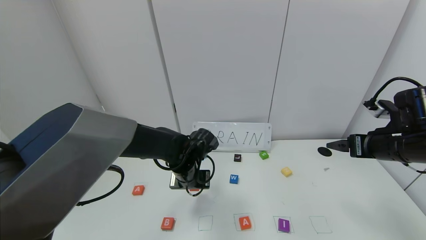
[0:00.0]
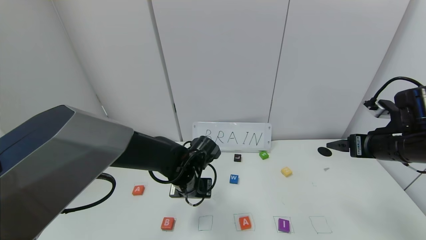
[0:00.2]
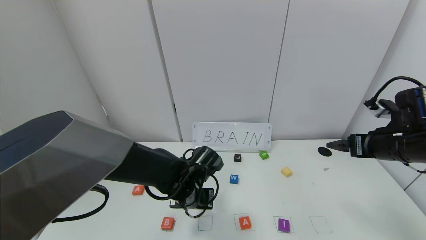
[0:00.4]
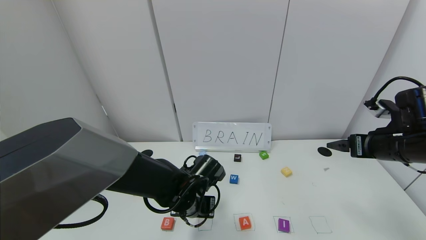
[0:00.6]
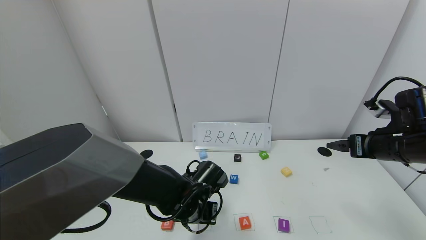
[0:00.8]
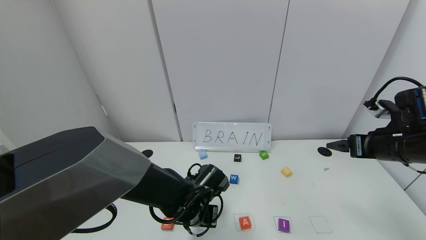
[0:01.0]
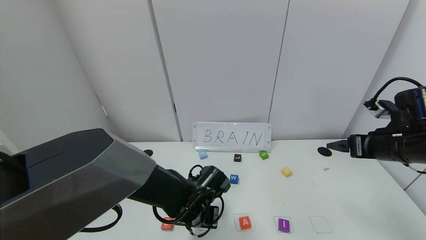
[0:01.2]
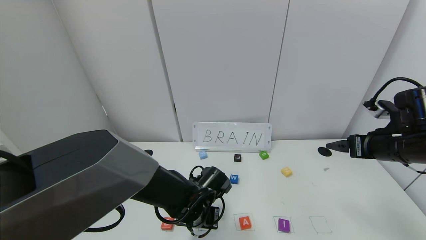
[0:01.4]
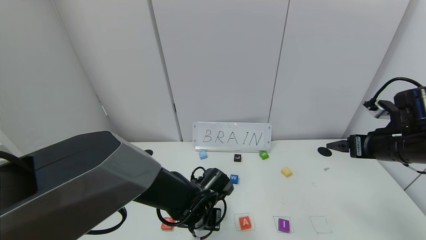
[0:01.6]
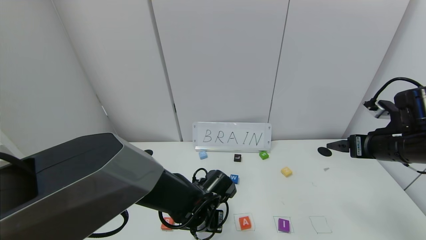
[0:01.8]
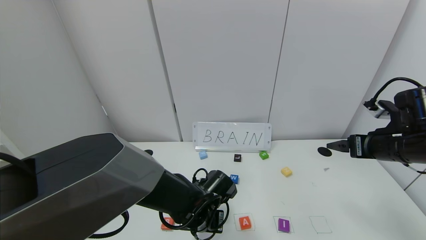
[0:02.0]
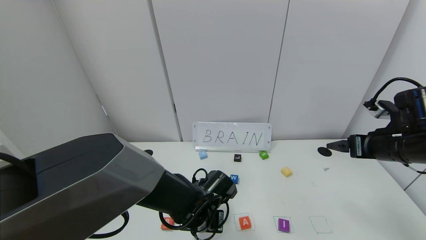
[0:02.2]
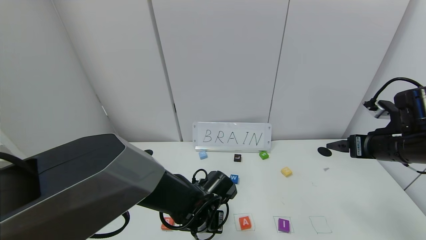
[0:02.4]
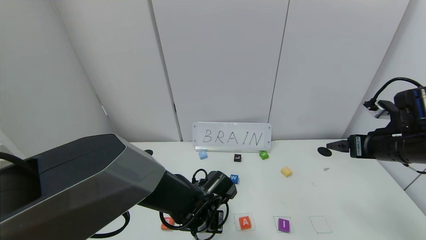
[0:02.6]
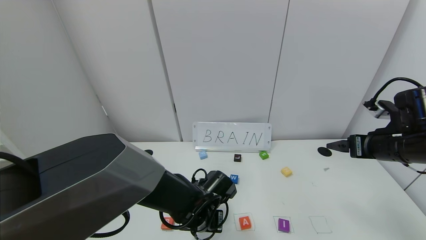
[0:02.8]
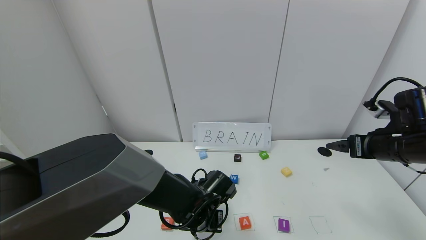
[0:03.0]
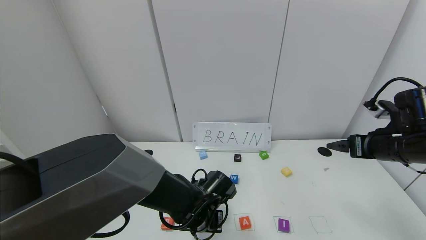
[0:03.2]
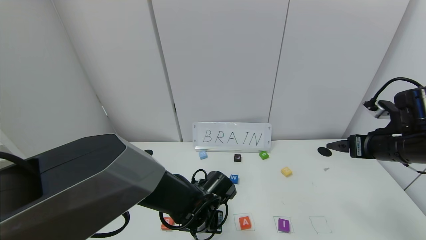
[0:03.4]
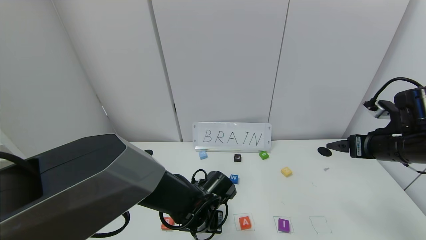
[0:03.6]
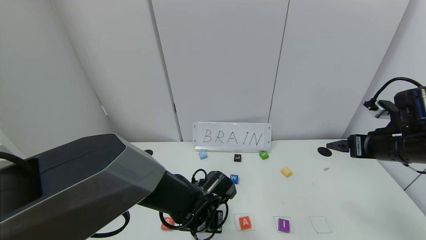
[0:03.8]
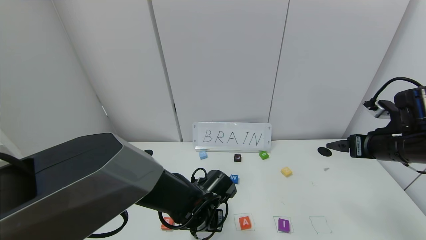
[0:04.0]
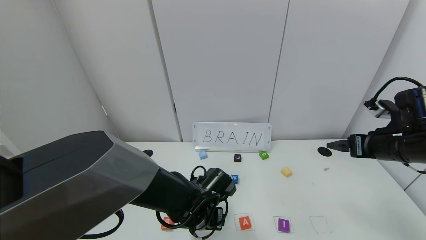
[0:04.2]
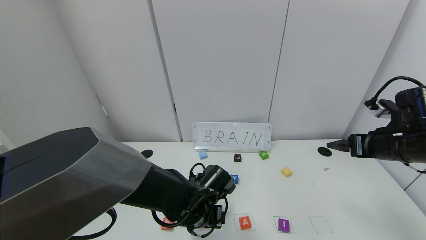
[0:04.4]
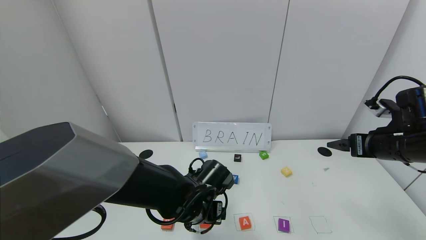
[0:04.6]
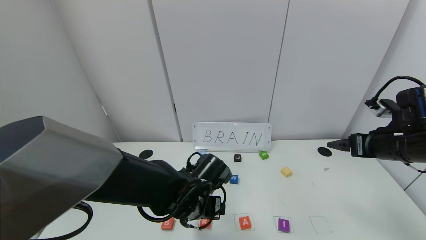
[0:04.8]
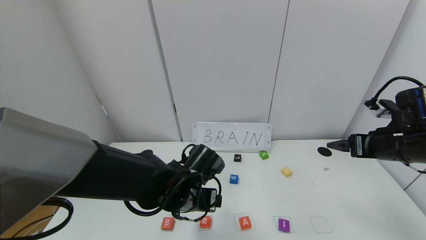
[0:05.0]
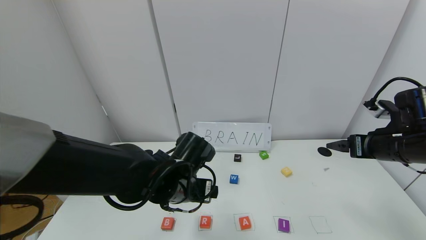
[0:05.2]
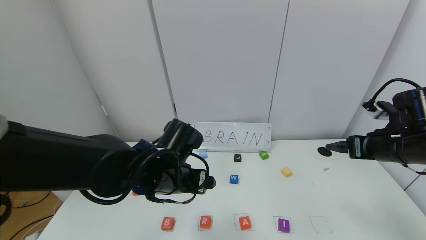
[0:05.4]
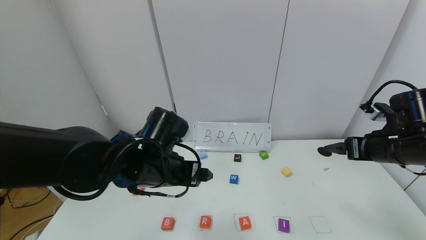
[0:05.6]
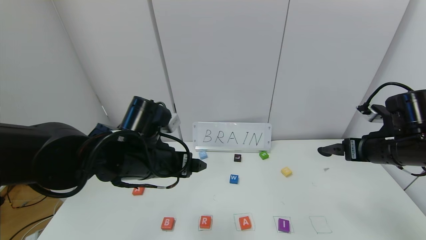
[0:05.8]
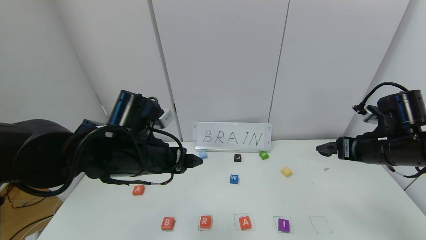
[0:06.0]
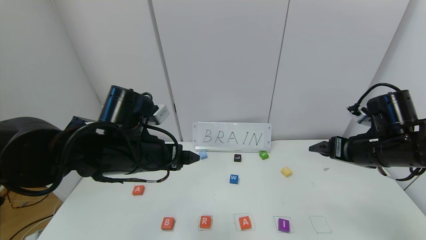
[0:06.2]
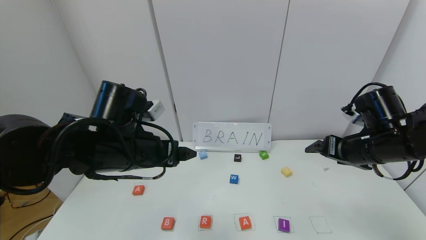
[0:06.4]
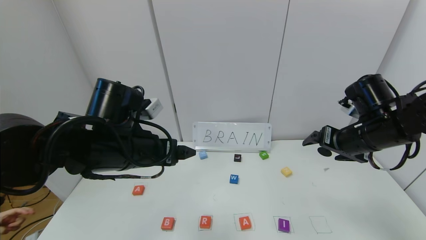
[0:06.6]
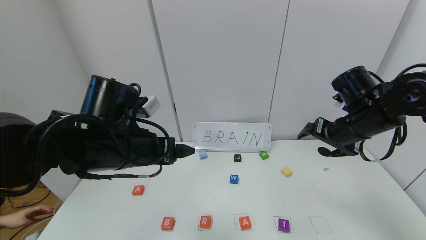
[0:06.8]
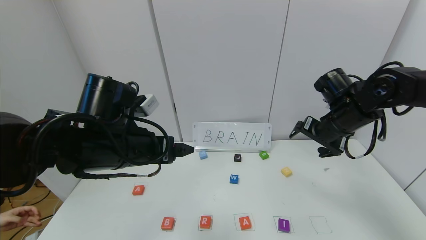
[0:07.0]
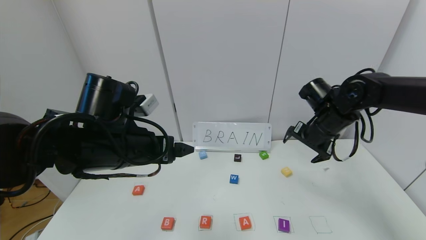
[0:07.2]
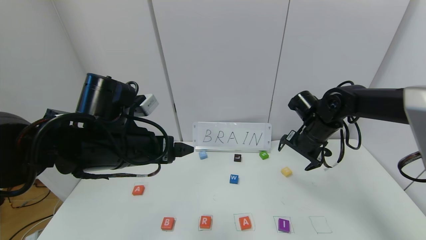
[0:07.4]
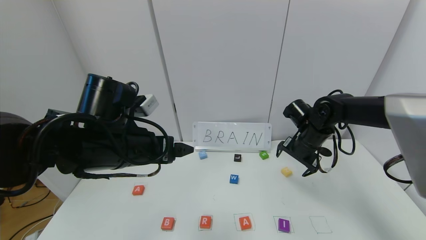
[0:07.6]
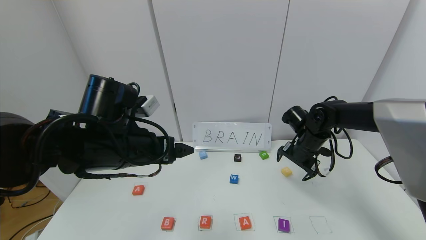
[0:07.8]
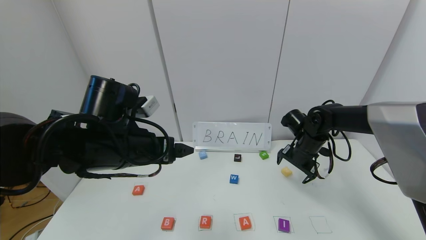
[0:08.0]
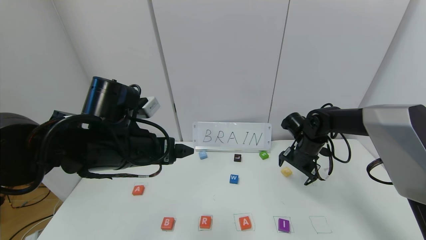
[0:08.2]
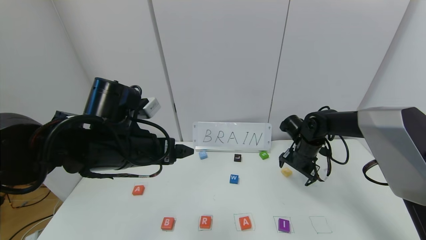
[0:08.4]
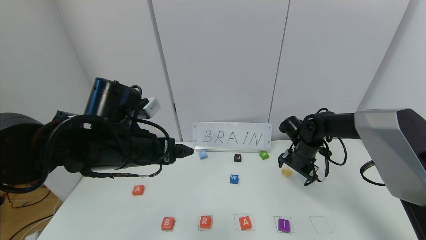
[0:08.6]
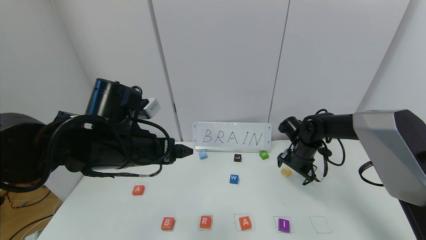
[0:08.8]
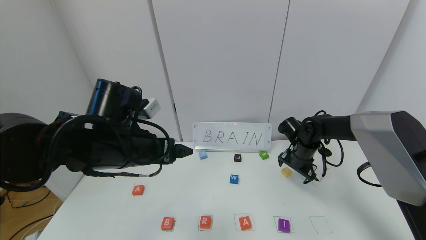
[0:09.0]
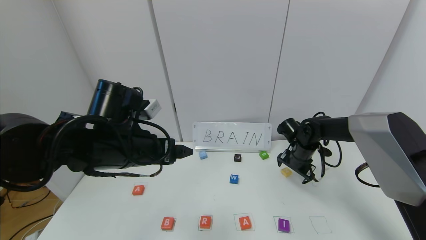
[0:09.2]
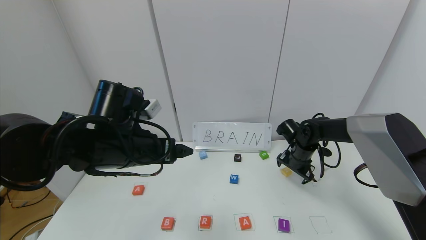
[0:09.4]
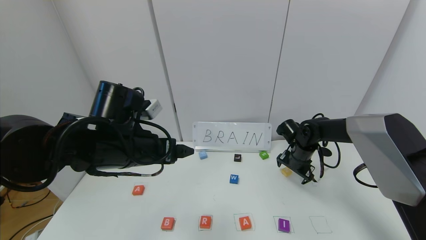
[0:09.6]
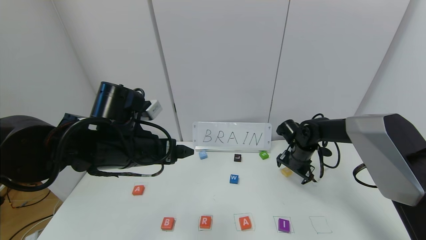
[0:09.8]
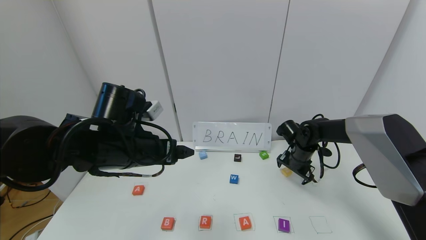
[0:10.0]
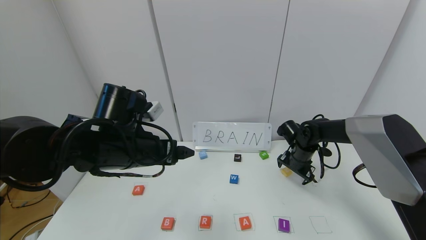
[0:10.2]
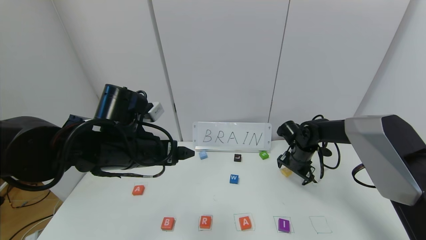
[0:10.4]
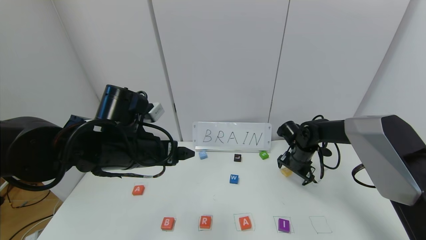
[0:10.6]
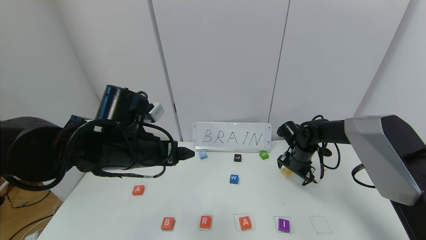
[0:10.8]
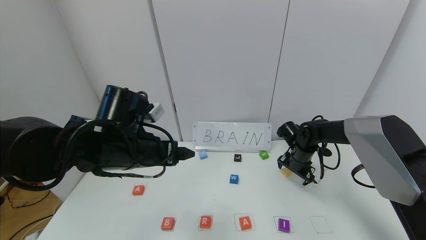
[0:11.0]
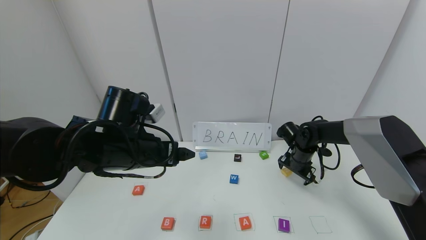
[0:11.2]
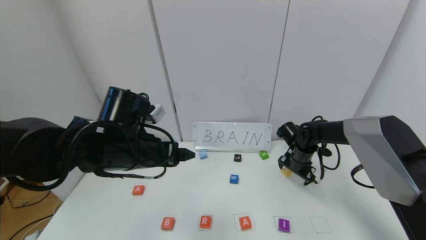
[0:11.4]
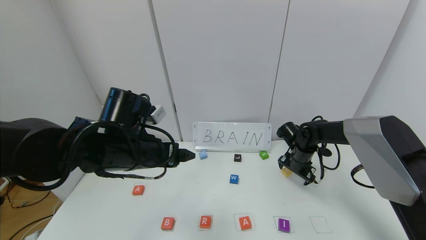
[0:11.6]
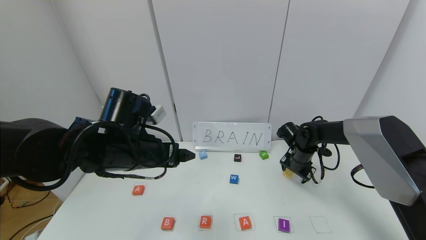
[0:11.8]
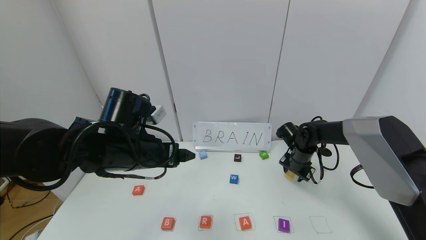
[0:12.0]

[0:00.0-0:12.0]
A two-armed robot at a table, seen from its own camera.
Task of the whole recording: use the gripper to find blocks with the letters b, a, a, and i on the table and arrange them into BAAI, then find r and N and turn the arranged baai into brian.
Step, 0:00.0 to 0:04.0: Place the block R in the second location.
0:00.0 to 0:01.6: The left gripper heads backward and downward, covering roughly 10 cm.
0:01.6 to 0:03.0: Both grippers stay about where they are.
0:03.0 to 0:04.4: The left gripper opens up.
0:04.4 to 0:06.0: The left gripper travels upward and to the left by roughly 15 cm.
0:06.0 to 0:07.6: The right gripper travels forward, to the left and downward by about 15 cm.
0:07.6 to 0:09.0: The right gripper travels downward by roughly 5 cm.
0:09.0 to 0:10.4: The grippers stay close to where they were, moving slightly.
0:10.4 to 0:12.0: The right gripper closes its fingers.

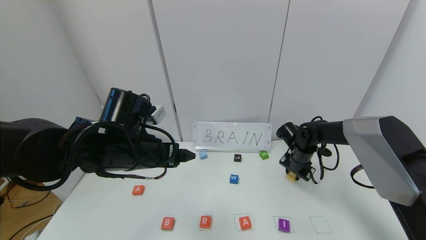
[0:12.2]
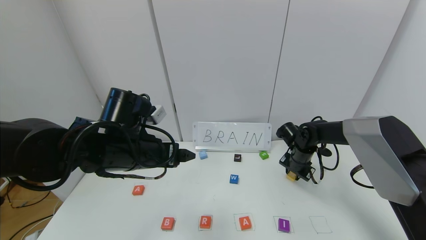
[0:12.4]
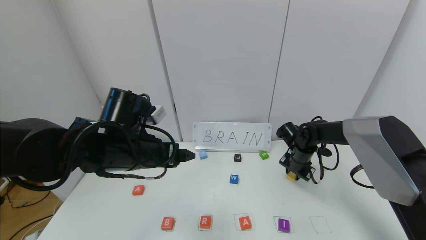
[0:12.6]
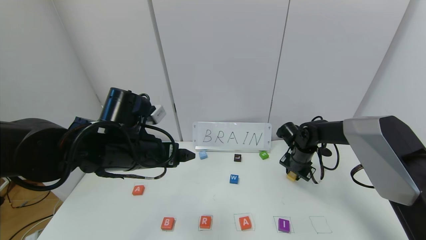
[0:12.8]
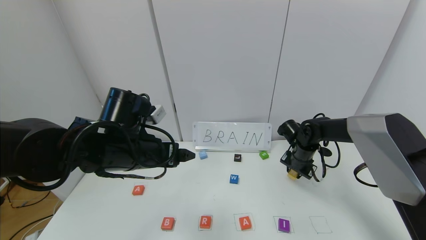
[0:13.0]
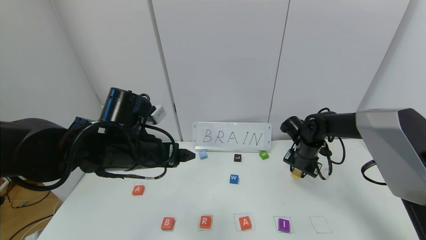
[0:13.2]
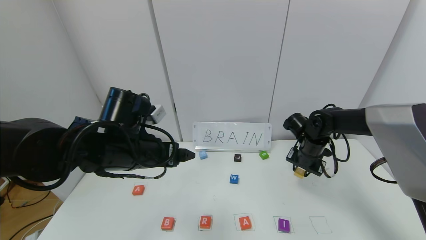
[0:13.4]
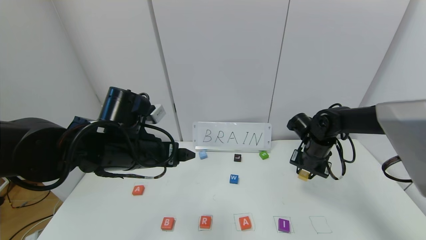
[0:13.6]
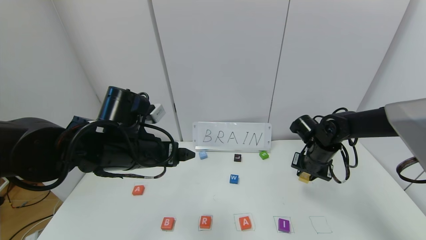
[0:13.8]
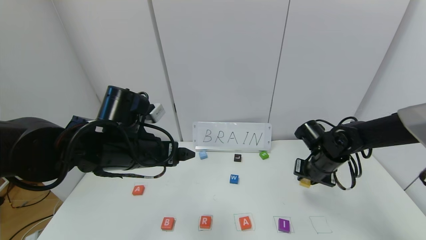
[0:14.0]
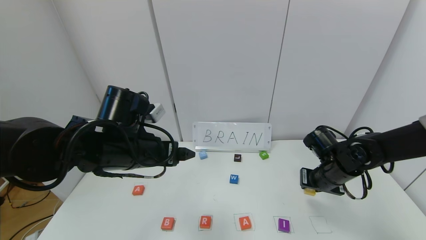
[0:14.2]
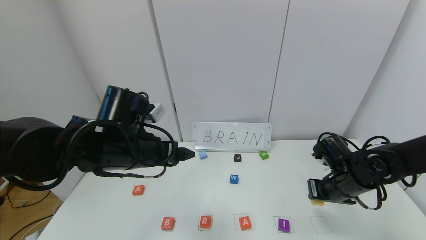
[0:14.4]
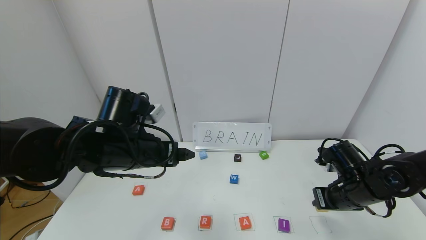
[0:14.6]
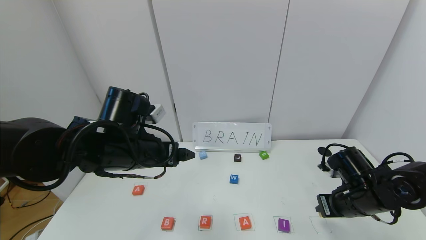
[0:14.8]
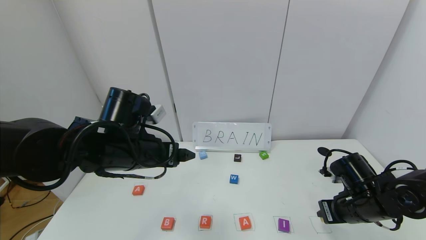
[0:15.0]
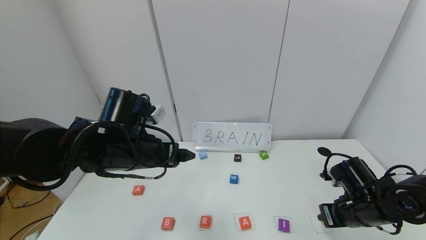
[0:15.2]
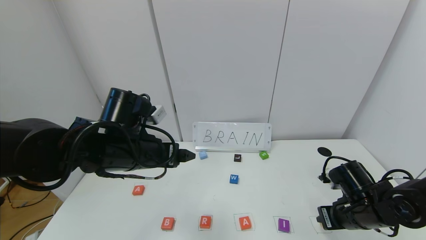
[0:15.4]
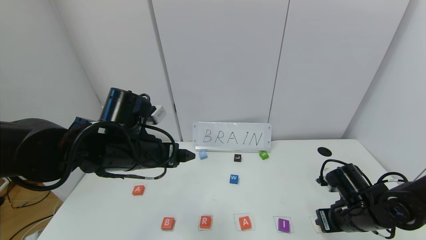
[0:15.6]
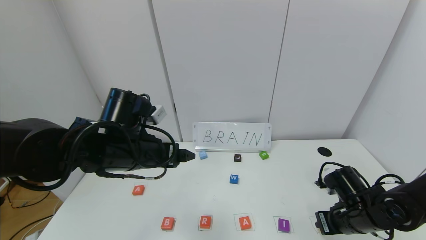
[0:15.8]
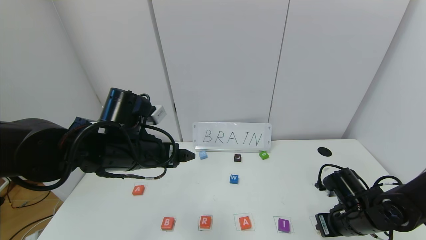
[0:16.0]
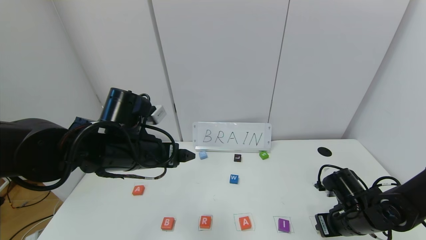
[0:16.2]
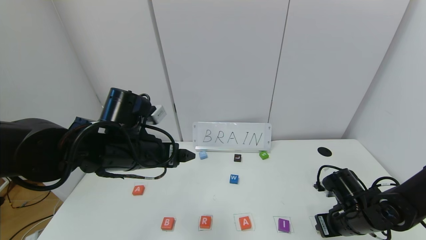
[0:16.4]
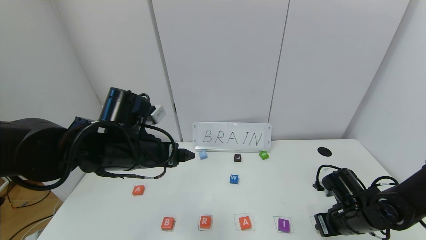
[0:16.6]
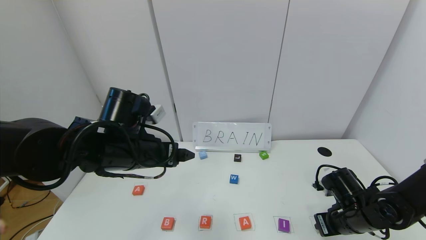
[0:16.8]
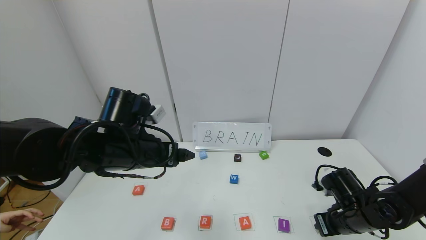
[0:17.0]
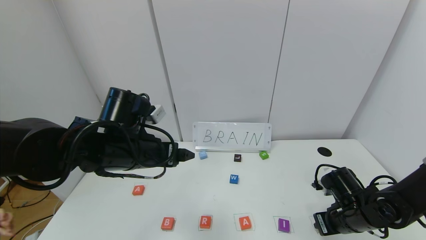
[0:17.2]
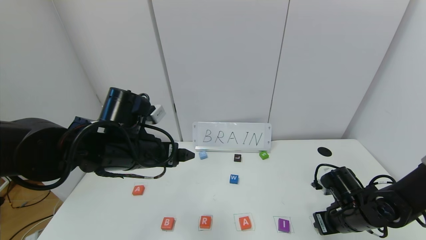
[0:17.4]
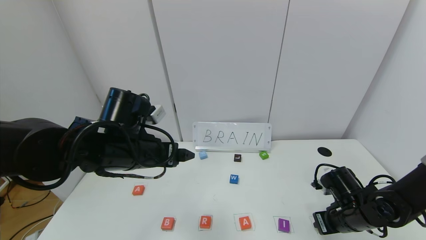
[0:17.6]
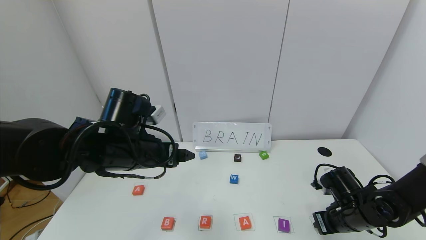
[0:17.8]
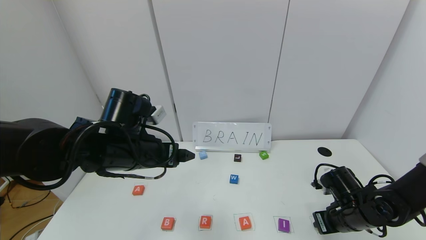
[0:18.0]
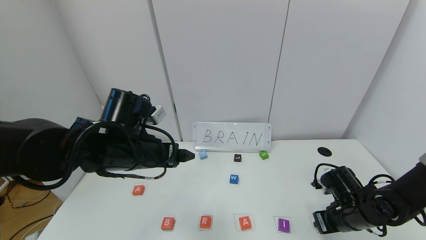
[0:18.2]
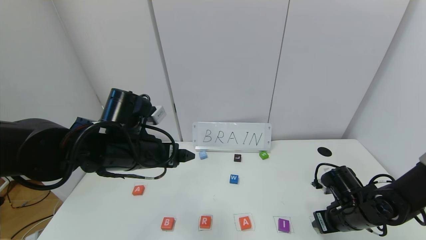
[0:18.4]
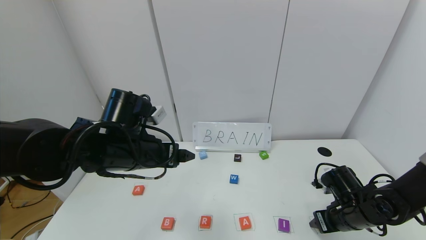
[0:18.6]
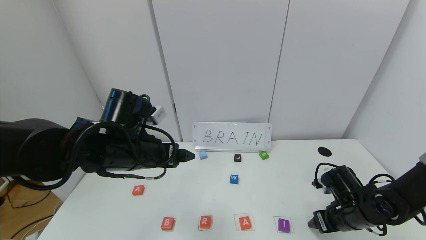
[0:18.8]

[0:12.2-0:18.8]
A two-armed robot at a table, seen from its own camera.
Task of the whole recording: use the gripper to find blocks with the letters b, a, a, and i on the table and arrange them into BAAI, then find r and N and turn the arranged baai into brian.
0:12.2 to 0:13.8: The right gripper travels backward and upward by some 10 cm.
0:13.8 to 0:15.4: The right gripper travels backward by some 15 cm.
0:15.4 to 0:17.2: The grippers move only a little.
0:17.2 to 0:18.8: The right gripper opens up.
